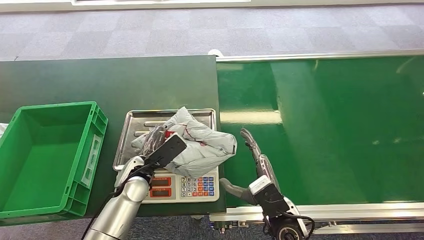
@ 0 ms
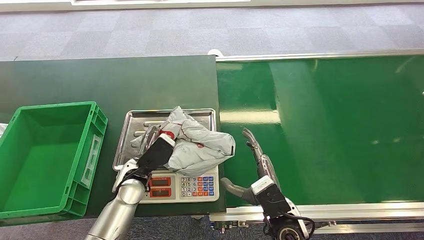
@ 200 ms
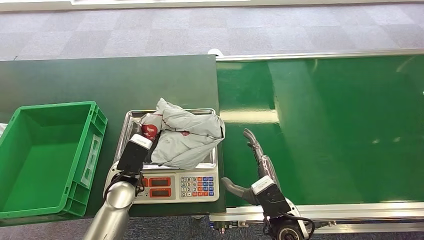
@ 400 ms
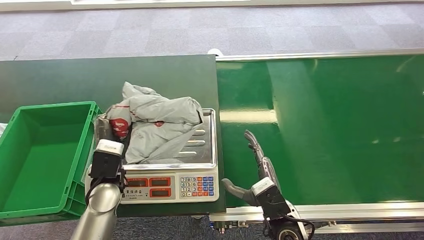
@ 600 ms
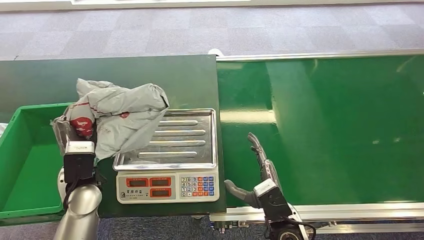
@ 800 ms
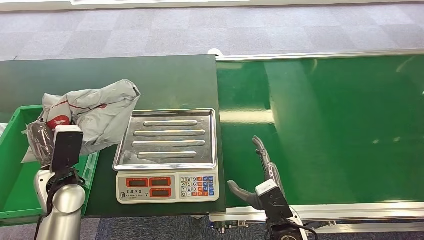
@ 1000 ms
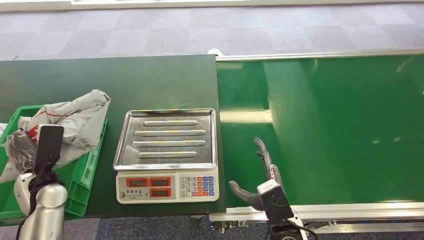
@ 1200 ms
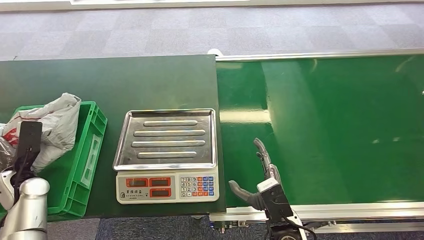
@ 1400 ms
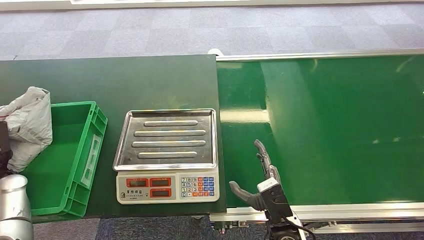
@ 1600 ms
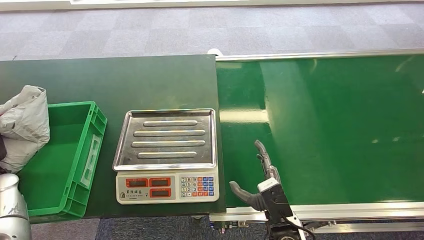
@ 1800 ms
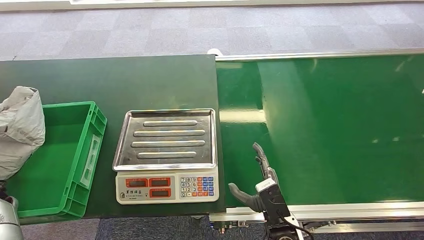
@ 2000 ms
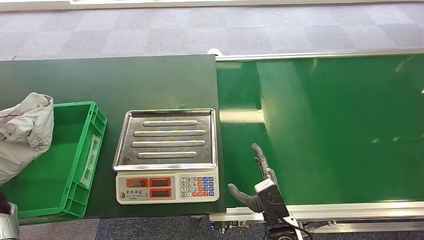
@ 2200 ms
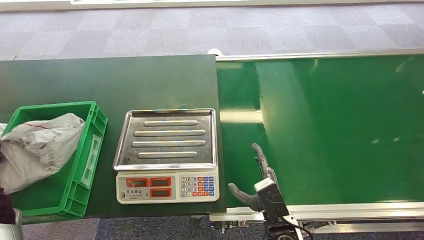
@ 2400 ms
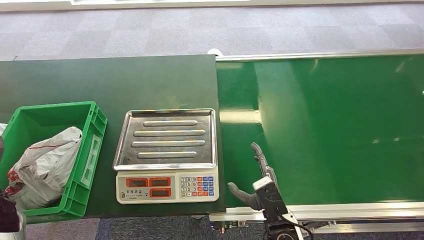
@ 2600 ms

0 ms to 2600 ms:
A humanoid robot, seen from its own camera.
Step, 0 ms to 800 ms: Pick up the package from the inbound machine.
Step, 1400 ms to 2600 ms: Place the package into the parcel locker.
1200 ms to 2600 ms: The left hand shifts some 10 cm to the left and backward.
